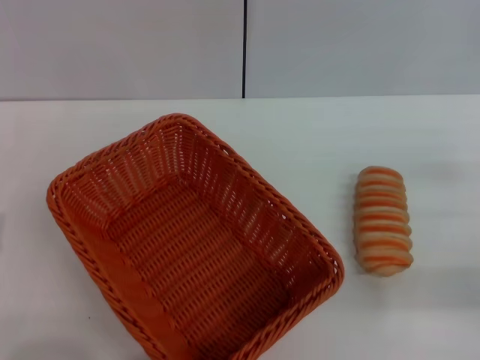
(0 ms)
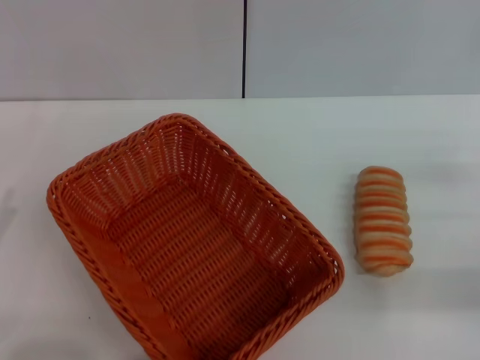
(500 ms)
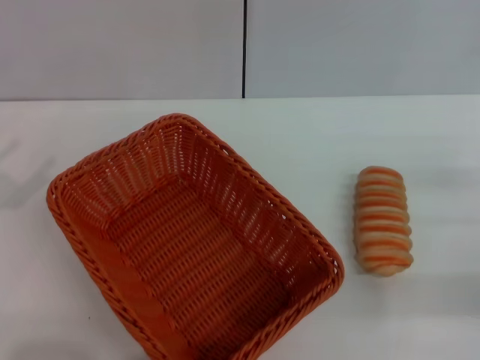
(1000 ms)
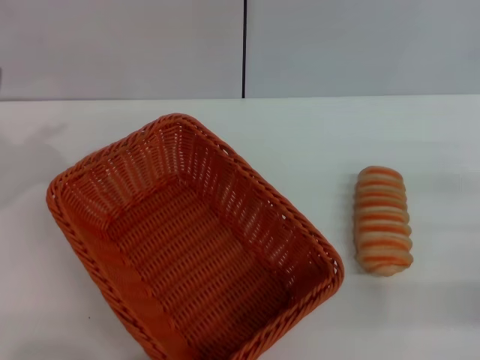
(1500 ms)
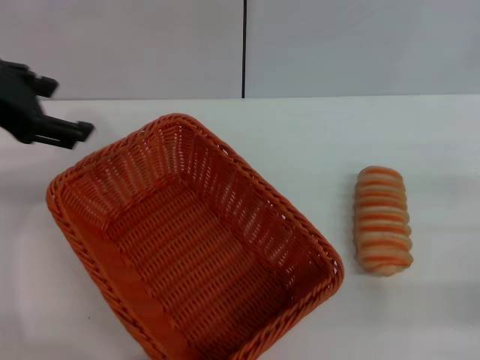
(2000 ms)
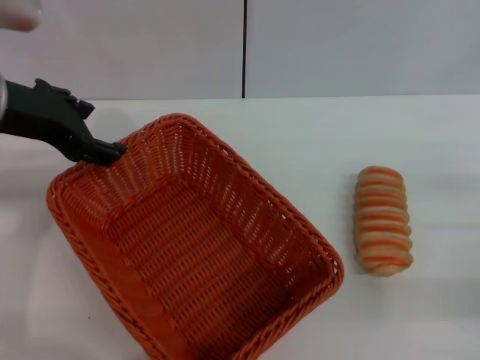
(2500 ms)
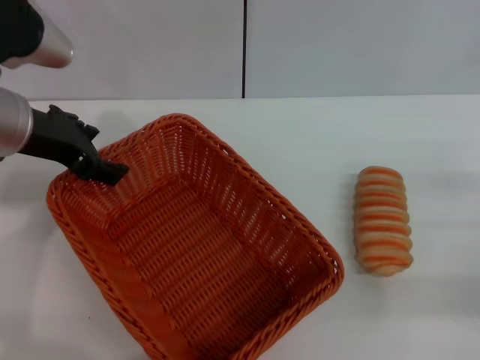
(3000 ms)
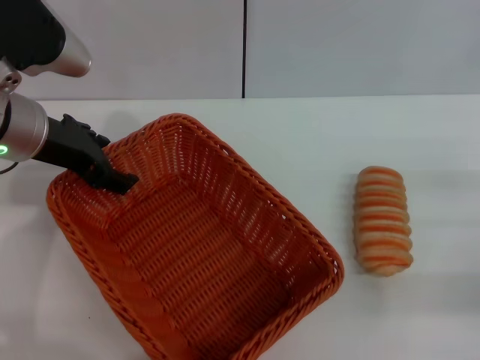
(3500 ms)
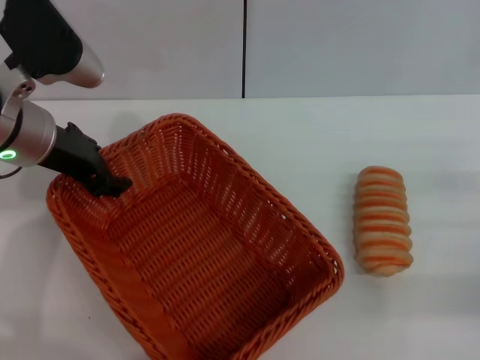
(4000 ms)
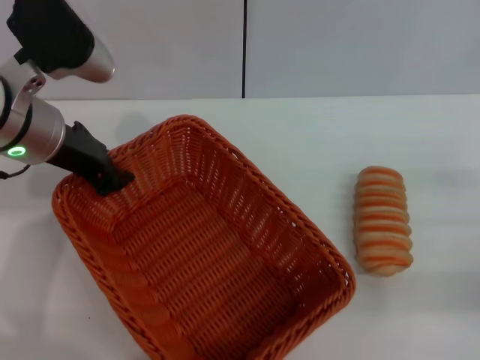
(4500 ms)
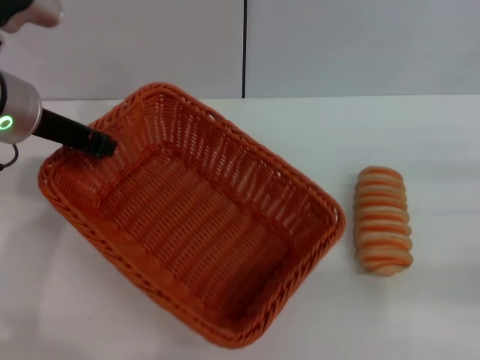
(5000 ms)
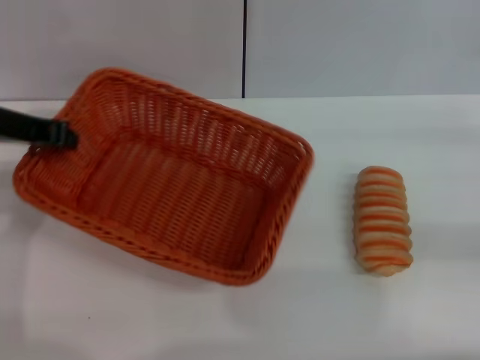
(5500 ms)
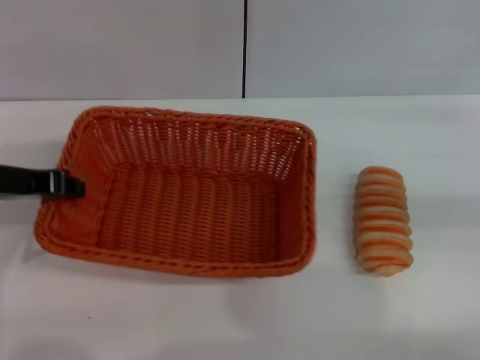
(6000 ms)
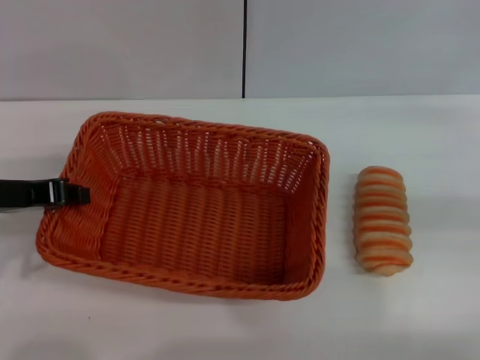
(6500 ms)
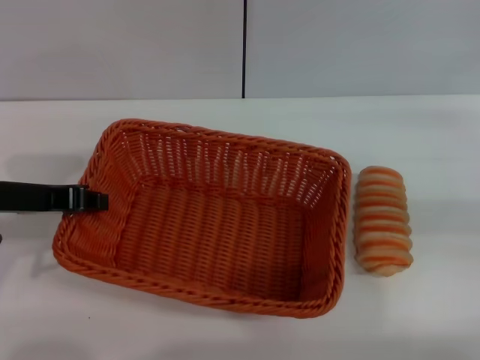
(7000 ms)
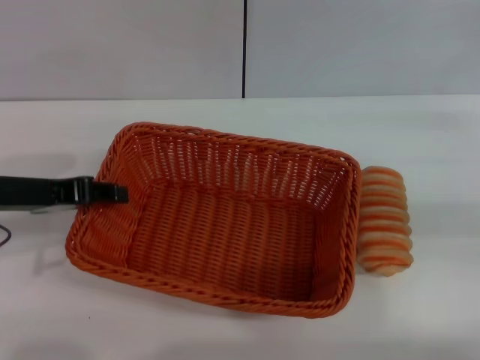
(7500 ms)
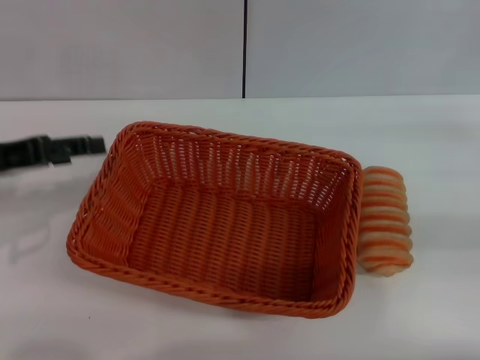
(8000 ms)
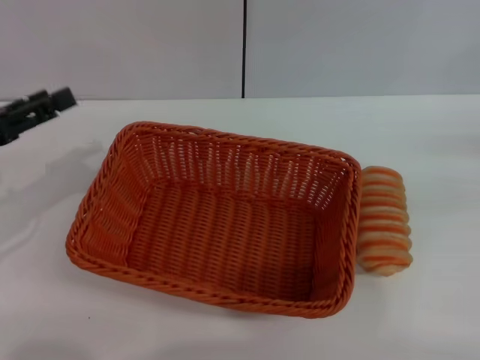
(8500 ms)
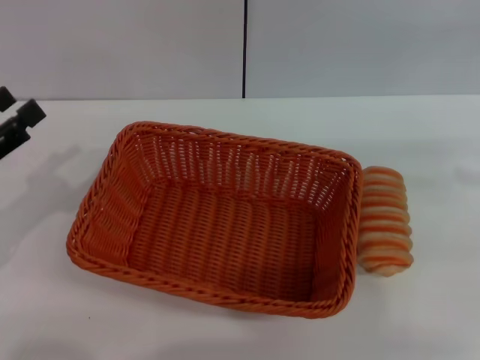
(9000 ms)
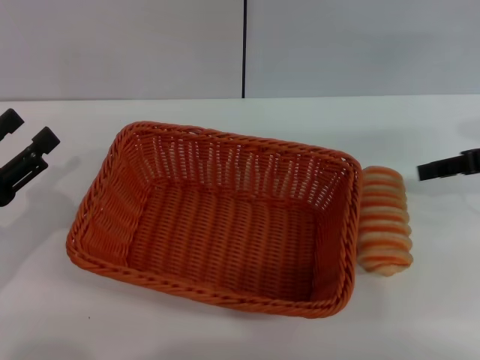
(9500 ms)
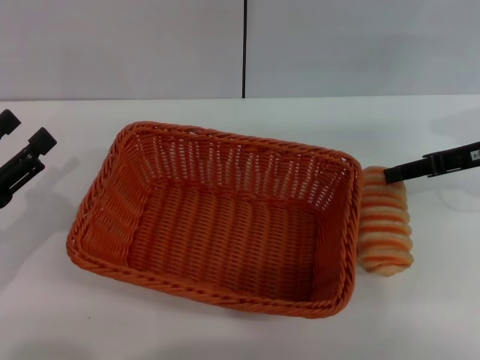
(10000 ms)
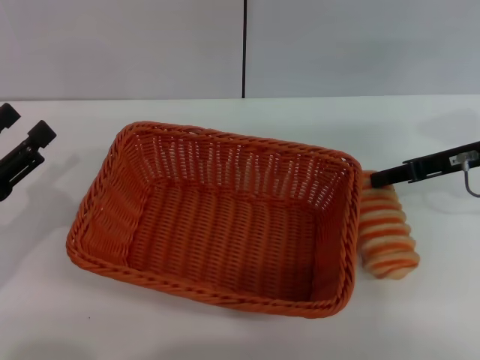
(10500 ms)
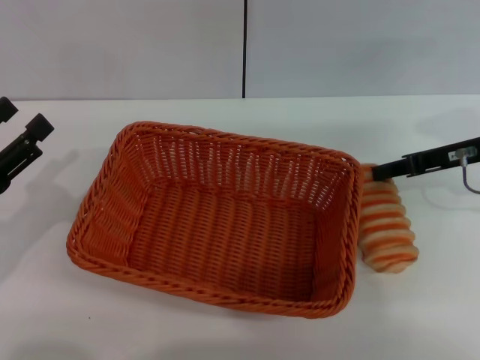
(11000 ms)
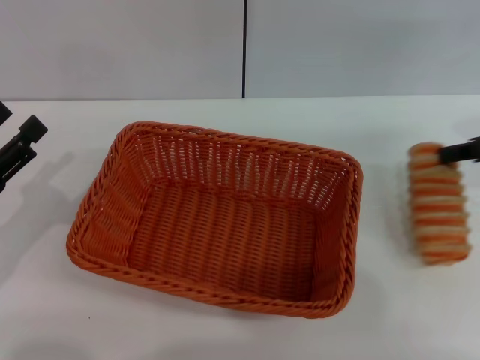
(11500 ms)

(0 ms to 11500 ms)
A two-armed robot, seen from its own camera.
Step, 5500 ms - 8000 ms: Place the light basket in the center of view with the right gripper.
0 ms - 2000 ms: The left gripper goes roughly 30 cm upward and forward, and opens.
2000 ms - 4000 ms: The left gripper goes some 10 cm downward and to the right.
4000 ms - 6000 ms: The right gripper moves forward and upward, about 10 cm. Meanwhile the left gripper is displaced to the left by some 5 cm, and closes its fingers.
6000 ms - 7500 ms: The grippers make only small movements.
7500 ms - 9500 ms: The right gripper travels to the left by approximately 5 cm. The left gripper shifts roughly 10 cm downward, backward and to the left, and opens.
9500 ms - 11500 ms: The right gripper closes up.

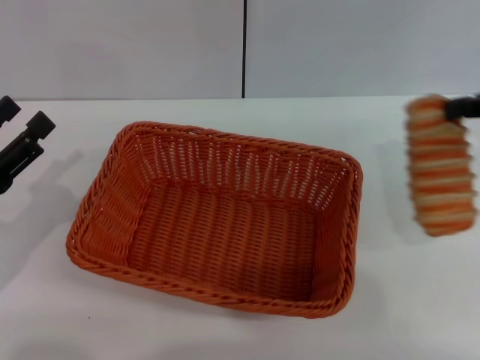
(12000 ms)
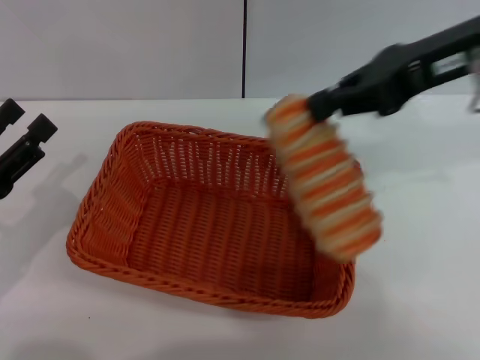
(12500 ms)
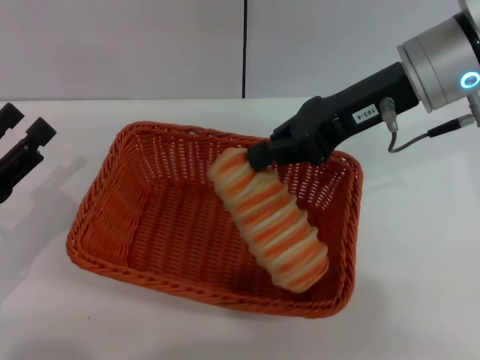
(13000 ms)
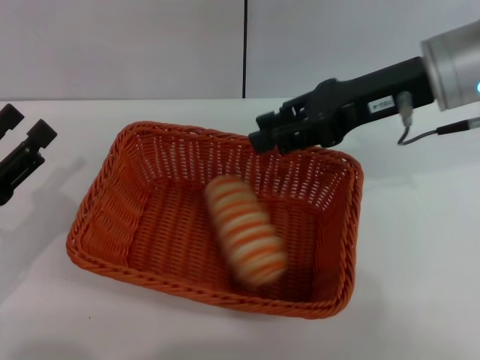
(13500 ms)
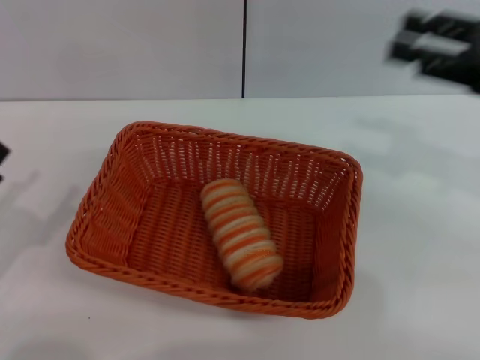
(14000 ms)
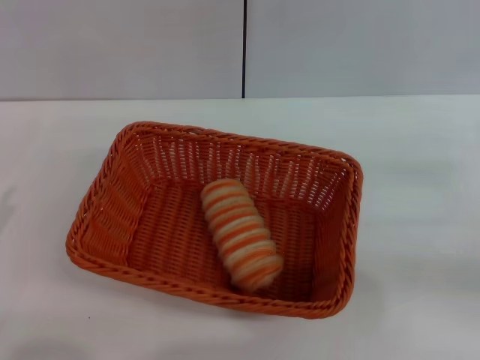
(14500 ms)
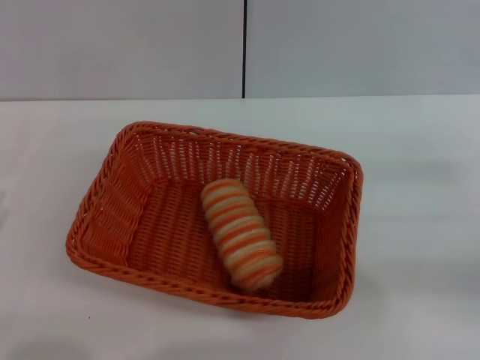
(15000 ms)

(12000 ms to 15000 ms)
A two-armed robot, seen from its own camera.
12000 ms - 13500 ms: The right gripper heads to the left, covering about 15 cm.
13500 ms - 15000 ms: The left gripper shifts approximately 5 cm backward. The right gripper goes some 25 cm to the right, downward and backward, and opens up.
